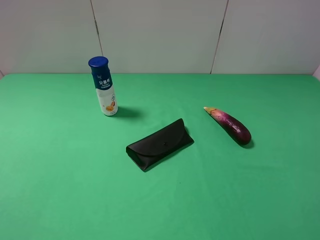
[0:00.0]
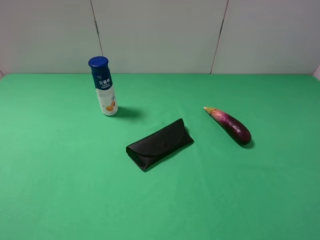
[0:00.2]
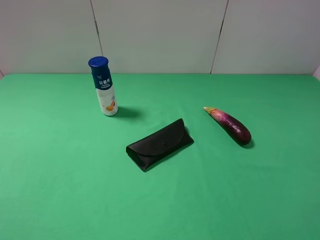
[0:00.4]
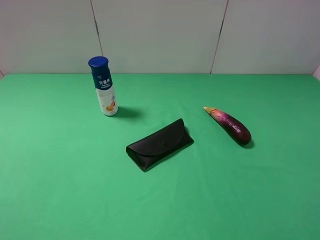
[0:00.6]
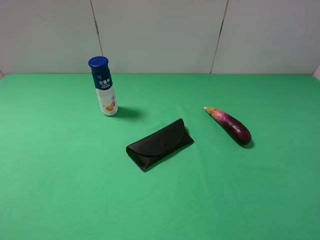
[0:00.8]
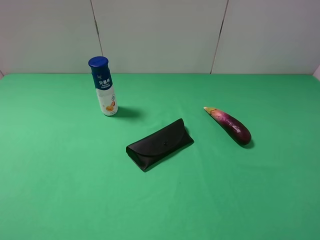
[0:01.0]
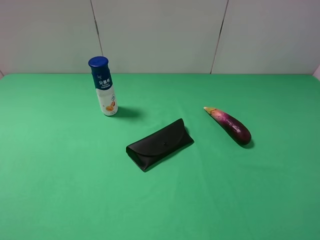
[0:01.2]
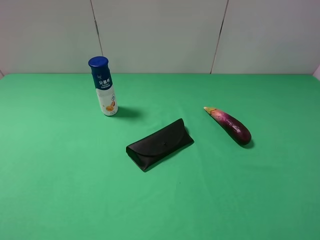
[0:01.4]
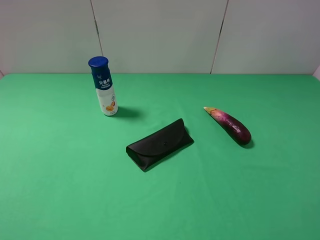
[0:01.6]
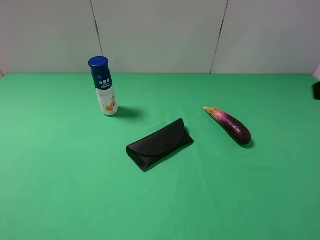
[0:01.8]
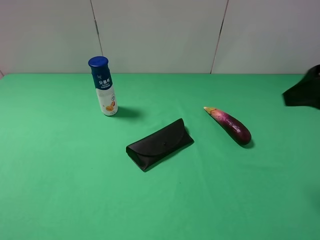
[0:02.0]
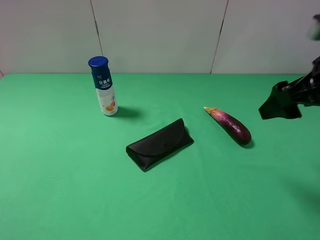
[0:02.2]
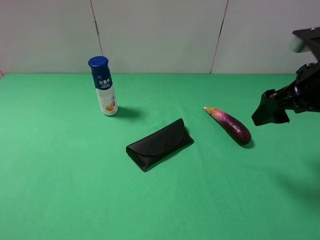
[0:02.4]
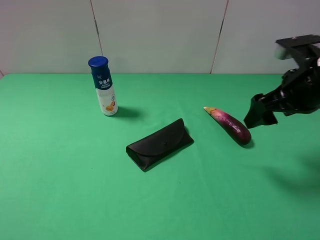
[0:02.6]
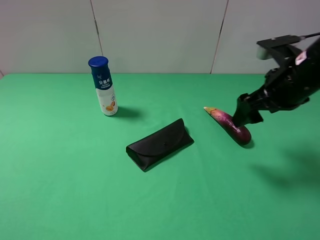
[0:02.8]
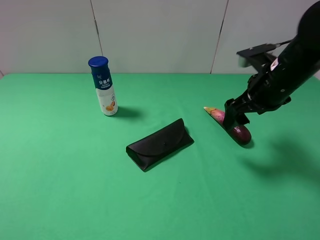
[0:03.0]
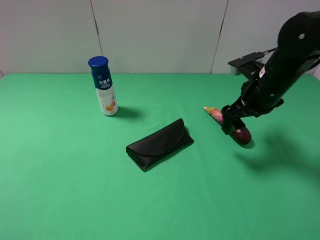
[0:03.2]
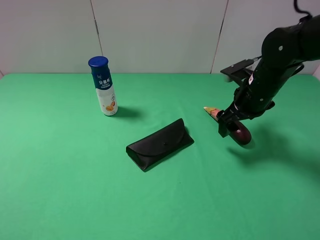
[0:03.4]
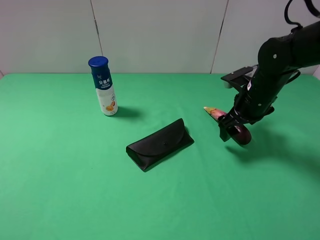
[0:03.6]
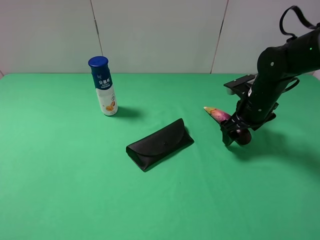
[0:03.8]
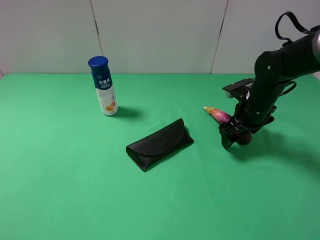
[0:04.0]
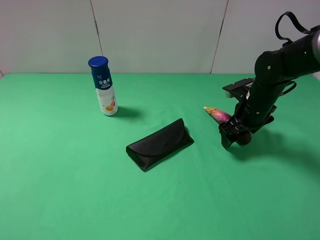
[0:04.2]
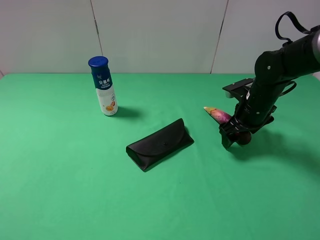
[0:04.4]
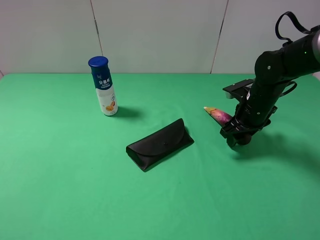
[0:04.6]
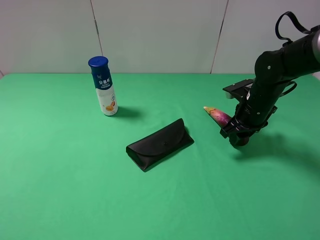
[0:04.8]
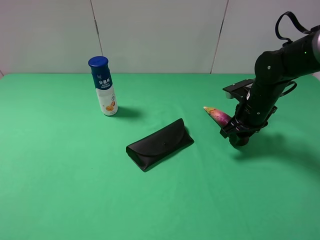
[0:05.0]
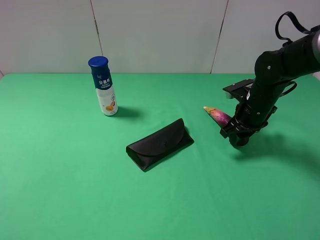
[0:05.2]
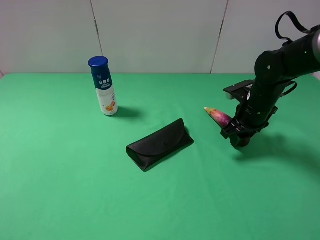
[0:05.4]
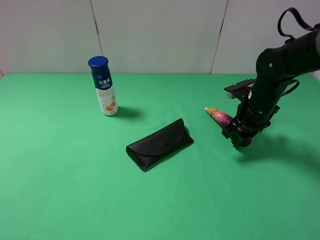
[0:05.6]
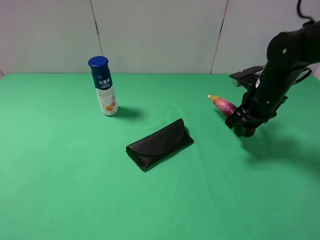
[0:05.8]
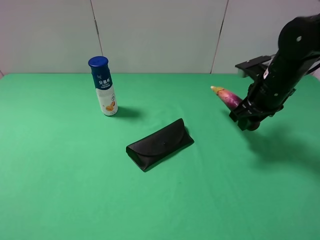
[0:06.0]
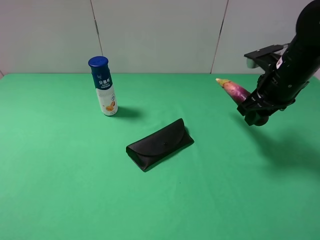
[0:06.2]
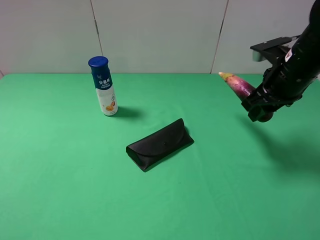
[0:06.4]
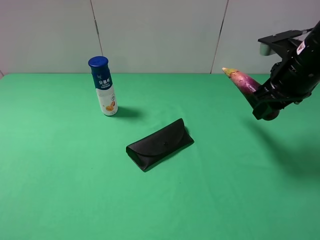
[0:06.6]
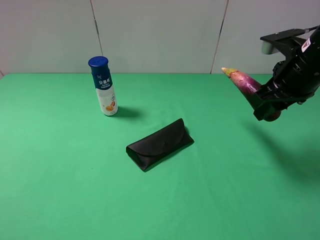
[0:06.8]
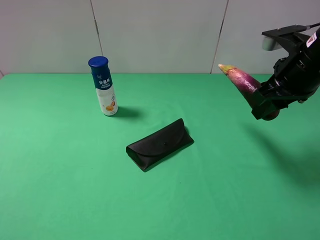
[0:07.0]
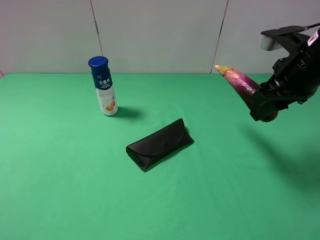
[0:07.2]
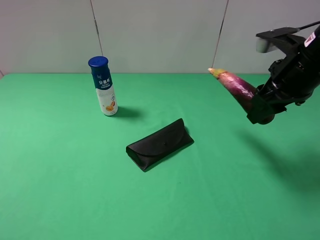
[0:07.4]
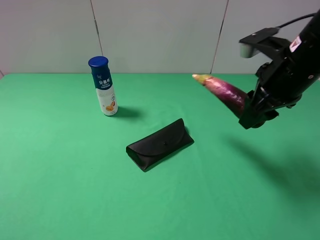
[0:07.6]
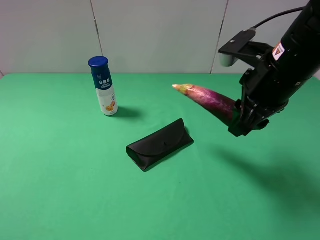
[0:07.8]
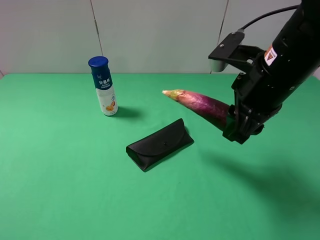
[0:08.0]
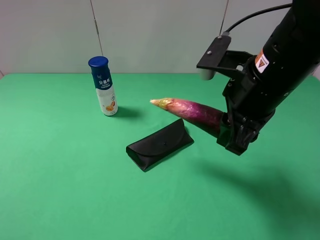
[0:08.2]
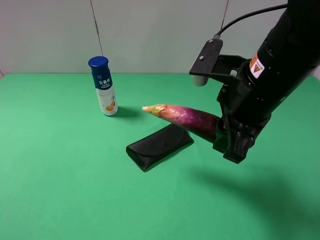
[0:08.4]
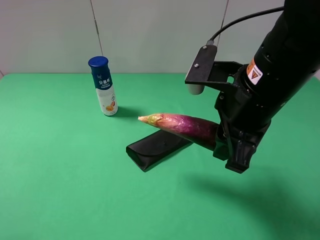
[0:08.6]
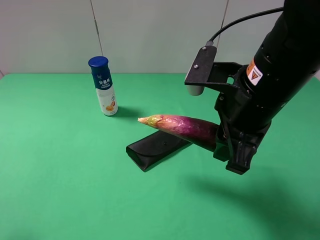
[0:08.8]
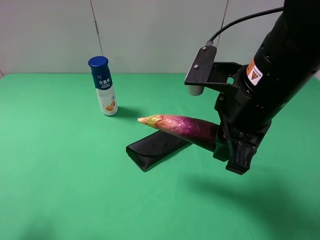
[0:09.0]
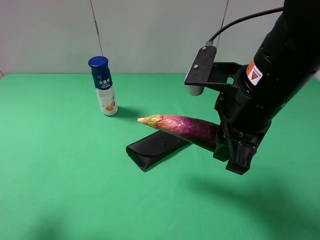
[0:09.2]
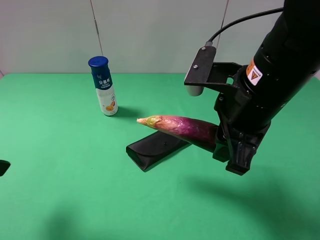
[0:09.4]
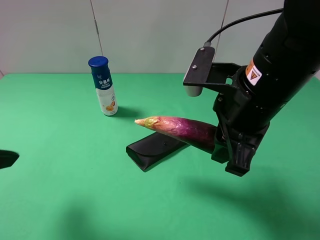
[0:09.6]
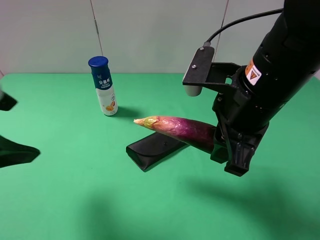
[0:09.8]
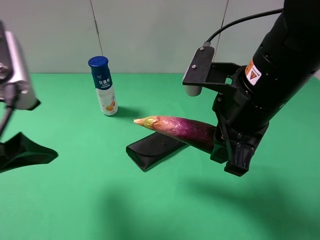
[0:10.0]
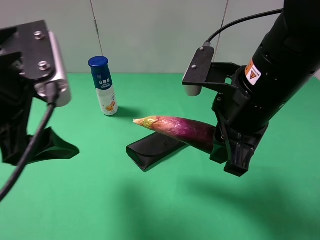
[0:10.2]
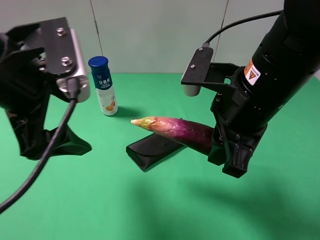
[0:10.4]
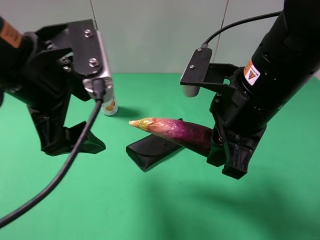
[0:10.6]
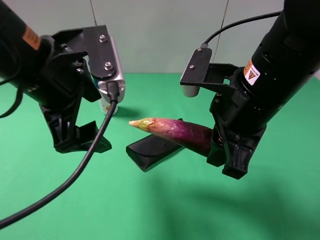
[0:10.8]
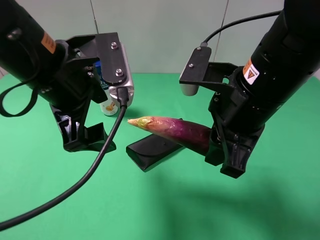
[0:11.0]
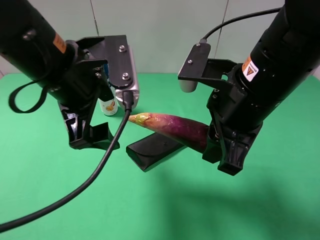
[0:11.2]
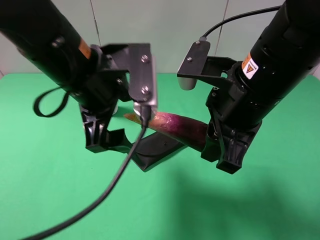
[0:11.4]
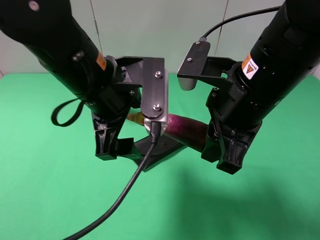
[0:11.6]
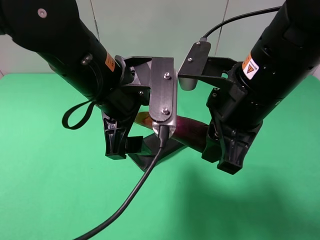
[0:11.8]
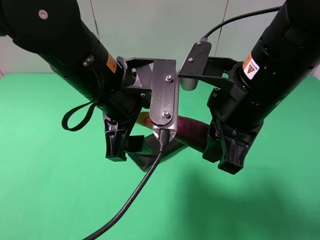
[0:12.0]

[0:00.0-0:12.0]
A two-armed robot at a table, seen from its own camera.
Task of the whole recording: use the right gripper to pick up the item and transfer it from the right gripper to the left gripper.
0:01.6 to 0:03.0: The right gripper is displaced forward, downward and to the left by about 25 cm.
0:03.0 to 0:04.4: The right gripper heads downward, covering roughly 10 cm.
0:04.4 to 0:06.0: The right gripper travels upward by roughly 5 cm, and closes up.
0:06.0 to 0:07.6: The right gripper travels upward and backward by about 10 cm.
0:07.6 to 0:09.0: The left gripper travels forward by some 5 cm, while the right gripper travels to the left and backward by about 10 cm.
0:09.0 to 0:10.4: The left gripper heads to the right and forward, covering approximately 15 cm.
0:10.4 to 0:12.0: The left gripper shifts approximately 10 cm to the right.

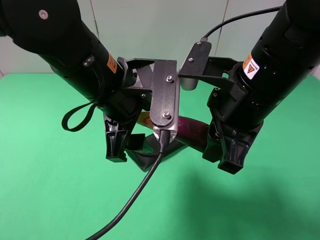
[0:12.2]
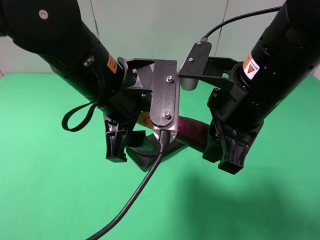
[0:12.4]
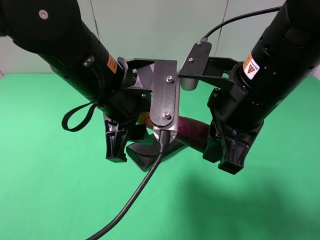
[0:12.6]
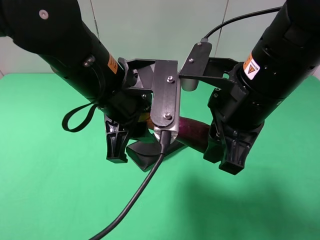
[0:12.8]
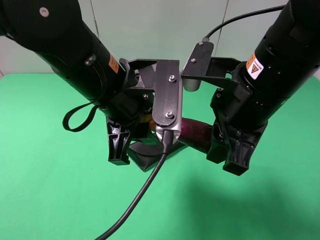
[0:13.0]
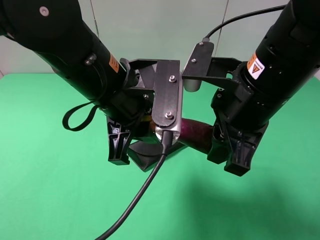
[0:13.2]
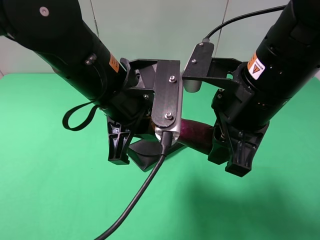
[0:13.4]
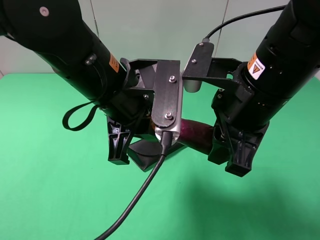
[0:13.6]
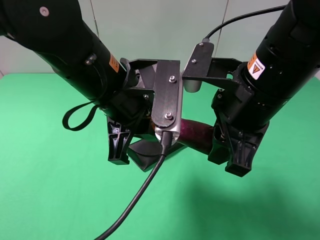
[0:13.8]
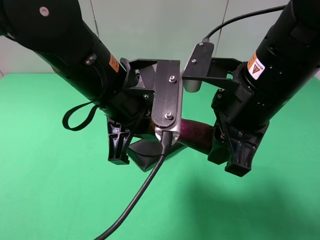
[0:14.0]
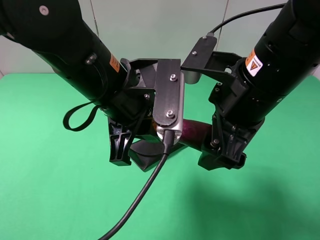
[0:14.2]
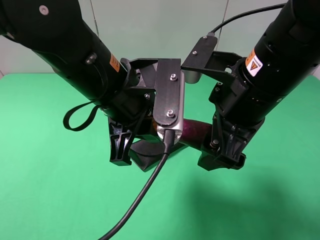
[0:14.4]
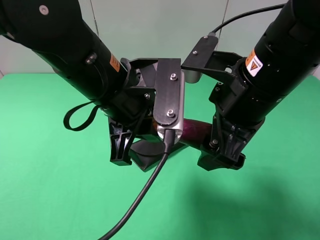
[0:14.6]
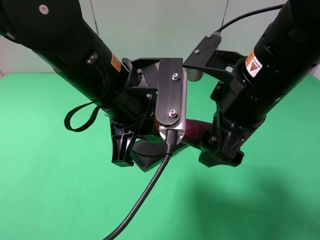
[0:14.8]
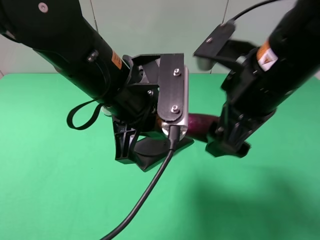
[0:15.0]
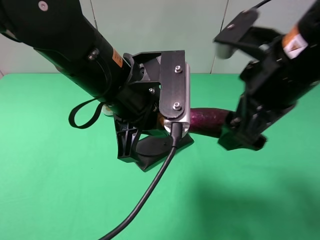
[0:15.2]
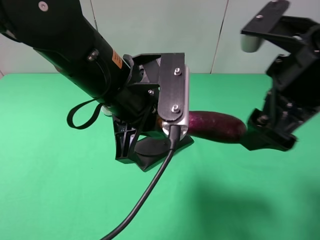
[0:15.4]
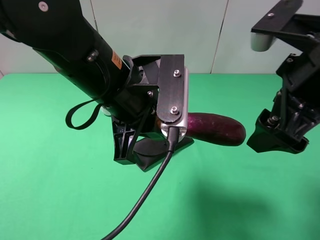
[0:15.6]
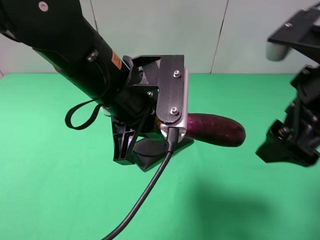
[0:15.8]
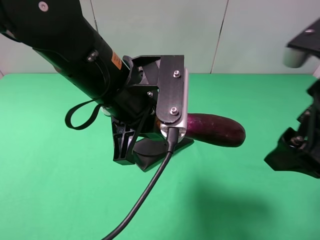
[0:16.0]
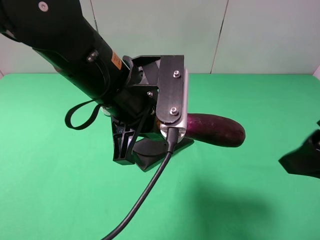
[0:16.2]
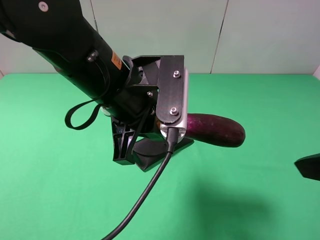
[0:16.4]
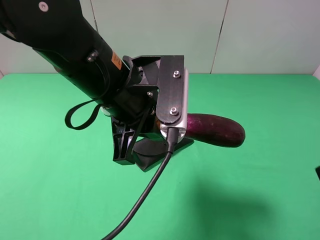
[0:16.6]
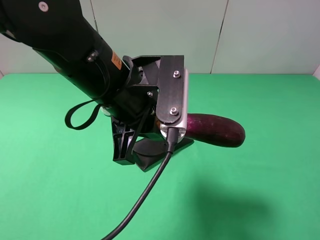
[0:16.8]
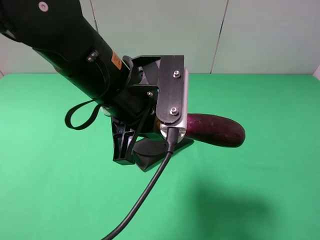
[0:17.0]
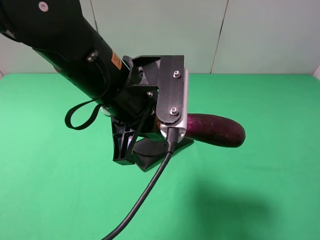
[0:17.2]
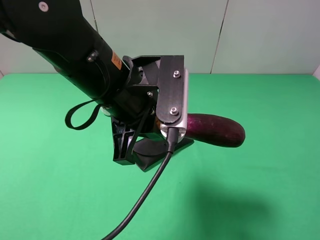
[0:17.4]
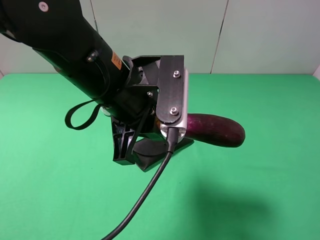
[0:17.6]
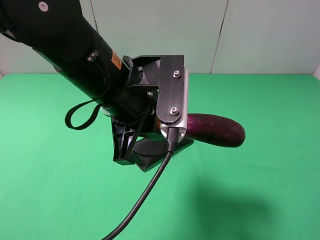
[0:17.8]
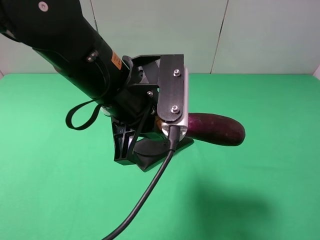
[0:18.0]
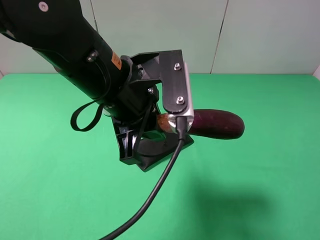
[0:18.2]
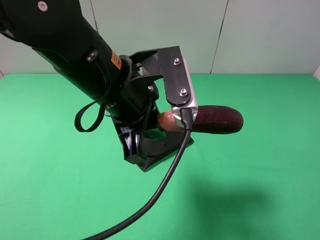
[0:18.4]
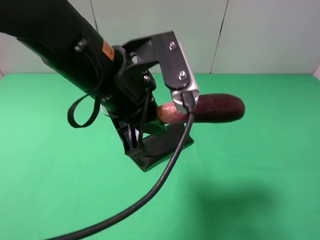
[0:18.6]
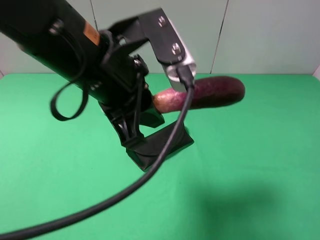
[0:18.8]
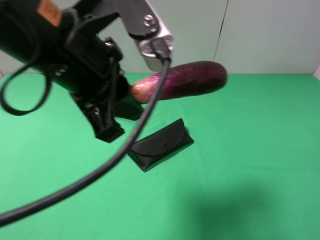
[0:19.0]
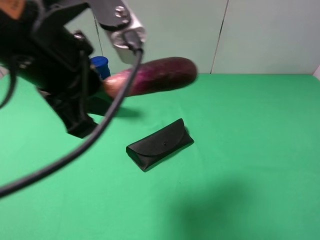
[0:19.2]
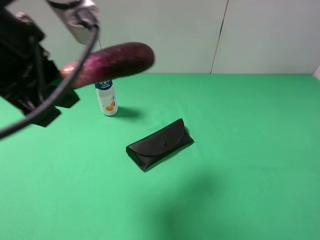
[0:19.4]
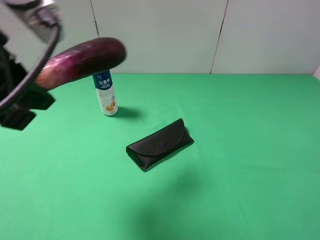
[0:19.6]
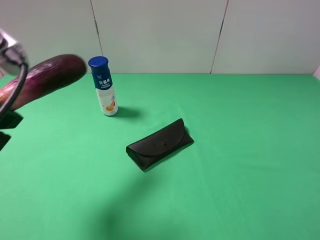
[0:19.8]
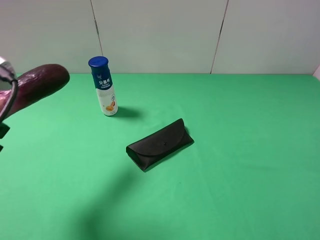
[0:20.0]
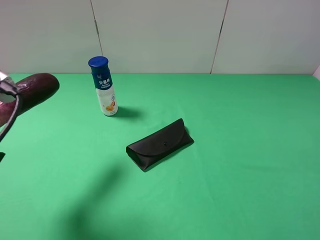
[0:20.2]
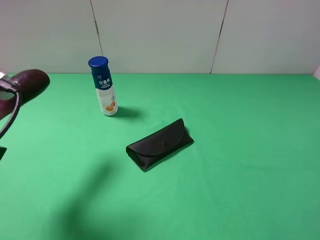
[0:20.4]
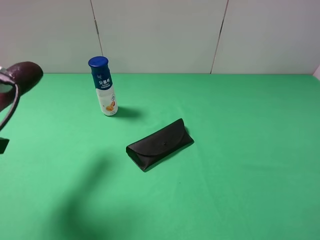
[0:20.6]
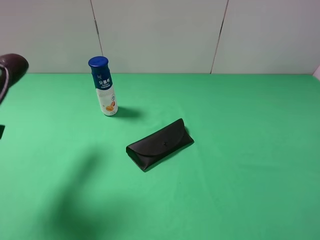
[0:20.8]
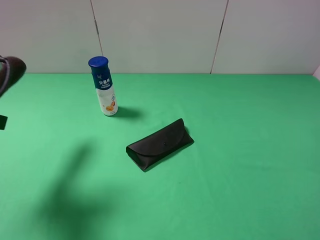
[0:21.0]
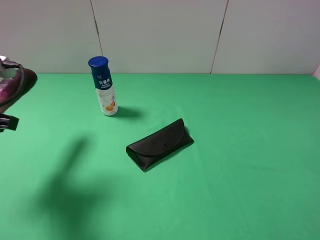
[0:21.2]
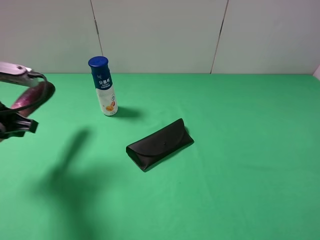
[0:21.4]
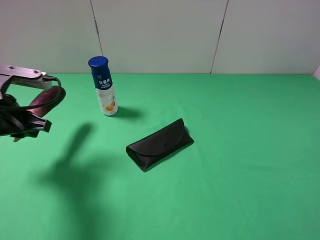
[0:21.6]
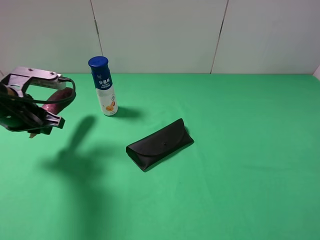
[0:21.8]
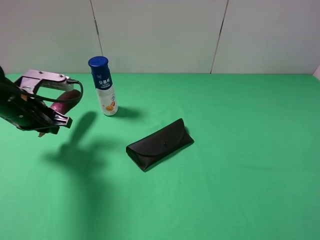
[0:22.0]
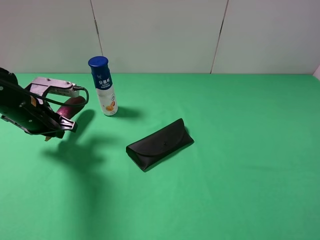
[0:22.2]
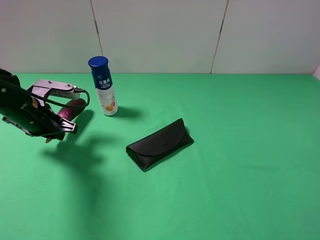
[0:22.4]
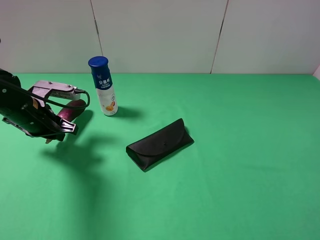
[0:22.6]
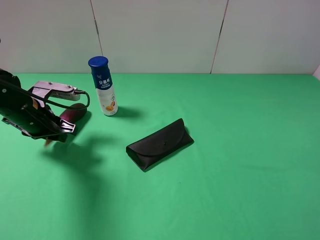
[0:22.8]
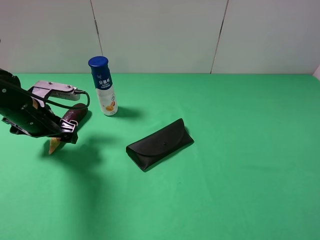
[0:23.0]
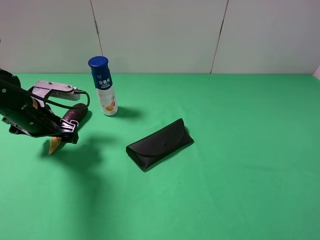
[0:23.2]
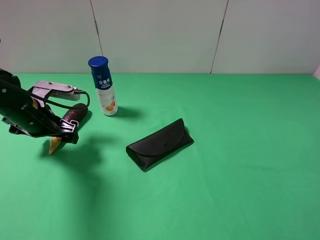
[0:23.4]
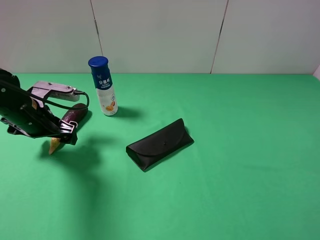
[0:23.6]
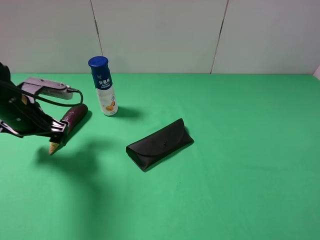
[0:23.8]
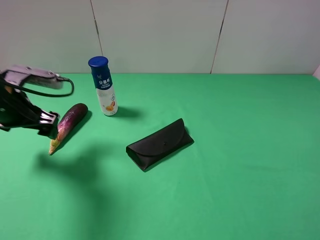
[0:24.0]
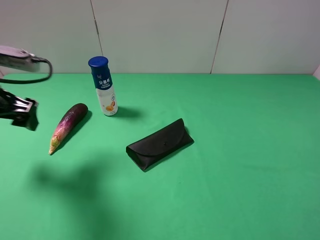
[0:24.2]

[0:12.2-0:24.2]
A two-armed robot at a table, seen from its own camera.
Task of the whole recording: use the right gripper to pick up the item and transfer it from the right gripper to the left gripper.
Step, 0:14.2 to 0:23.2: The left gripper places eggplant on the left side of the table.
0:12.2 to 0:13.8: The left gripper closes its fingers.
0:13.8 to 0:15.2: The right gripper opens up.
0:15.2 to 0:16.6: The right gripper travels backward and to the right by approximately 20 cm.
0:16.6 to 0:18.2: The right gripper ends up about 5 cm from where it was.
0:18.2 to 0:19.8: The left gripper heads to the left and backward, covering approximately 20 cm.
0:19.8 to 0:21.2: The left gripper travels downward, to the left and forward by approximately 10 cm.
0:21.2 to 0:22.6: The left gripper goes some 15 cm downward and forward.
0:22.6 to 0:24.2: The left gripper goes some 15 cm upward and backward, and opens up.
